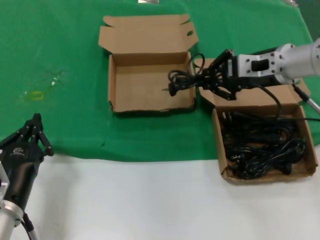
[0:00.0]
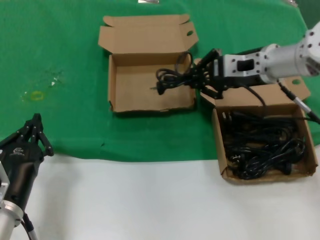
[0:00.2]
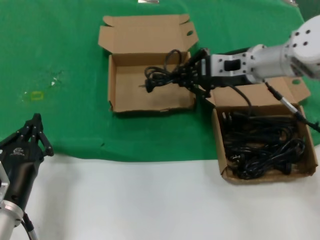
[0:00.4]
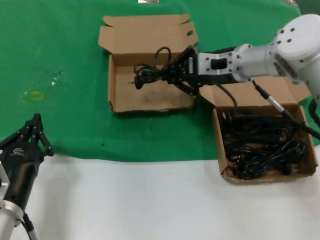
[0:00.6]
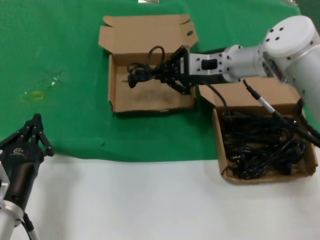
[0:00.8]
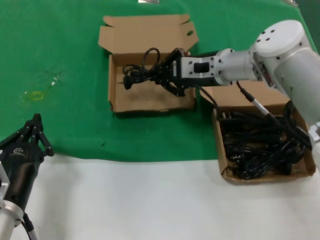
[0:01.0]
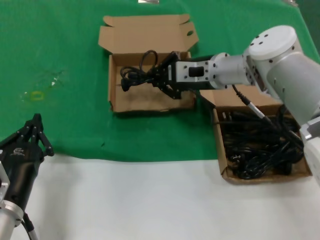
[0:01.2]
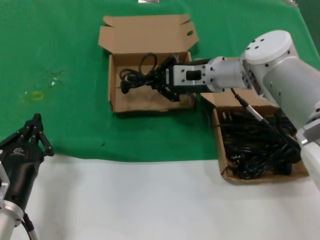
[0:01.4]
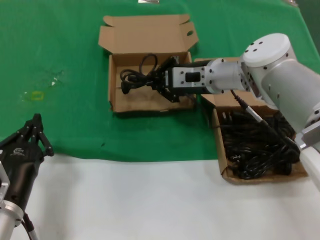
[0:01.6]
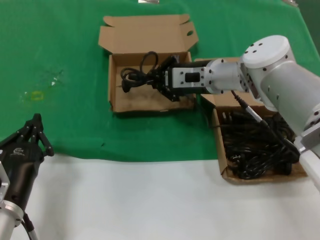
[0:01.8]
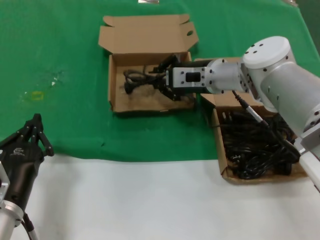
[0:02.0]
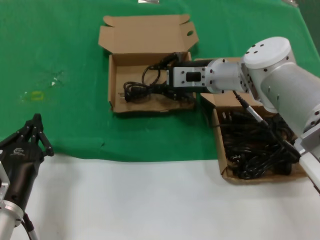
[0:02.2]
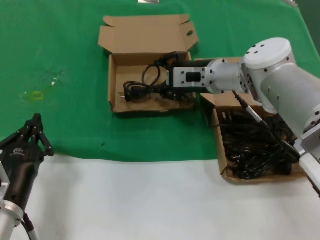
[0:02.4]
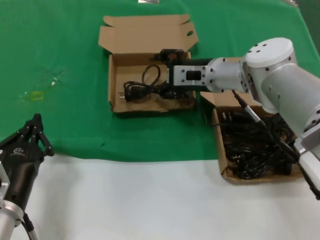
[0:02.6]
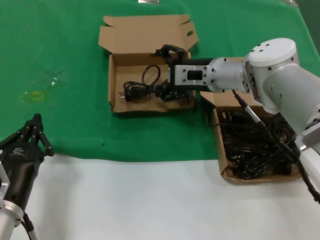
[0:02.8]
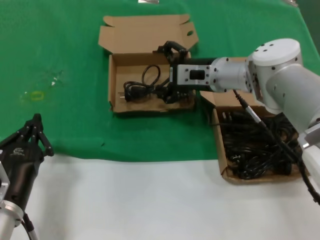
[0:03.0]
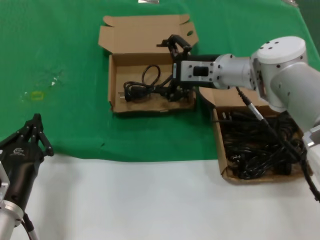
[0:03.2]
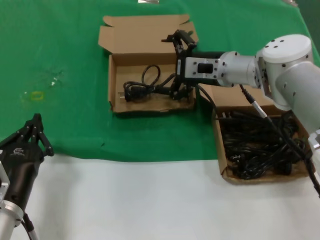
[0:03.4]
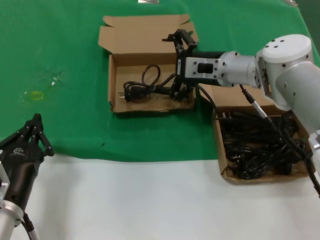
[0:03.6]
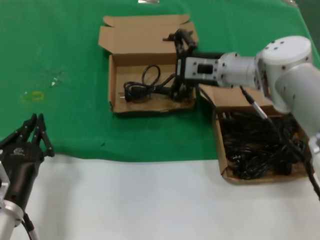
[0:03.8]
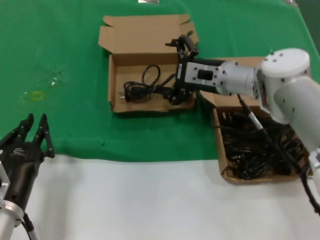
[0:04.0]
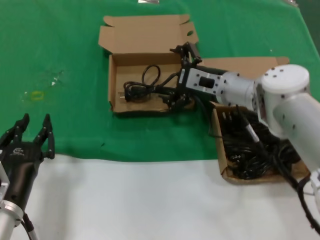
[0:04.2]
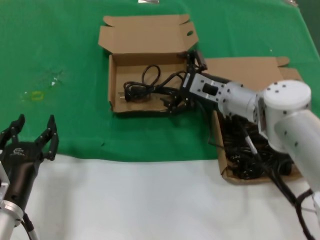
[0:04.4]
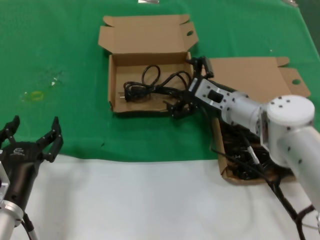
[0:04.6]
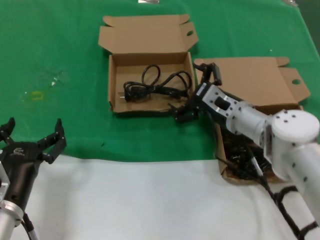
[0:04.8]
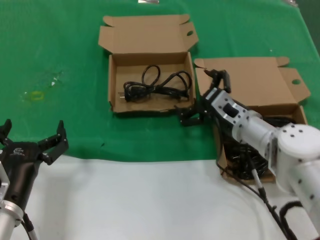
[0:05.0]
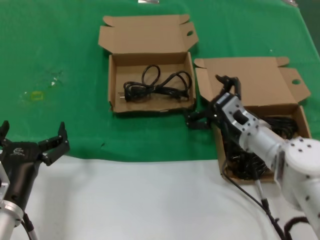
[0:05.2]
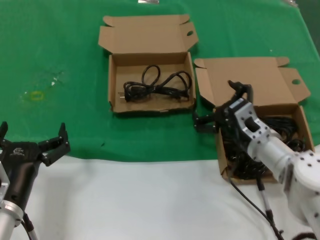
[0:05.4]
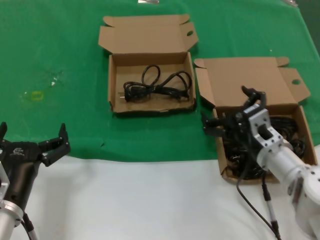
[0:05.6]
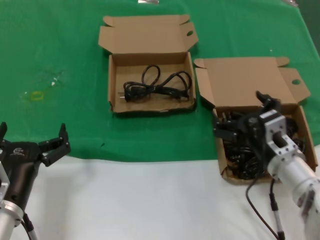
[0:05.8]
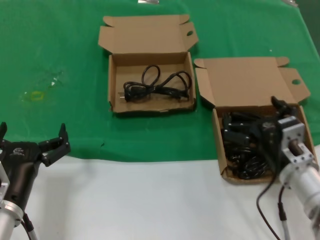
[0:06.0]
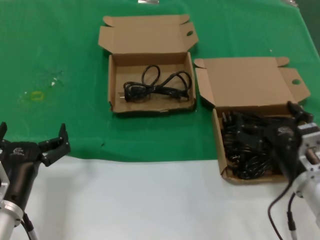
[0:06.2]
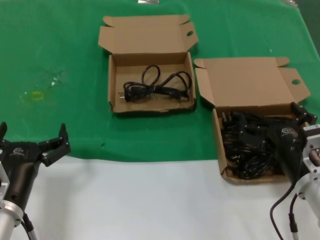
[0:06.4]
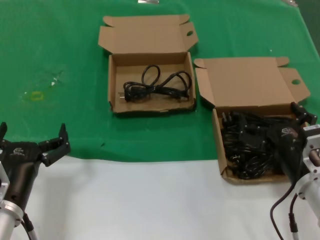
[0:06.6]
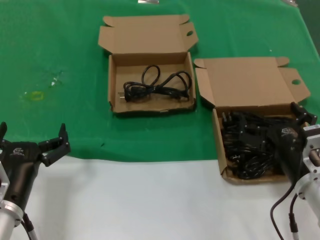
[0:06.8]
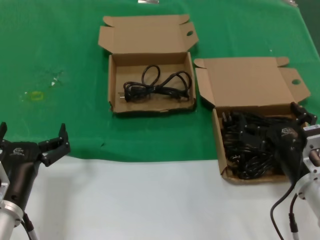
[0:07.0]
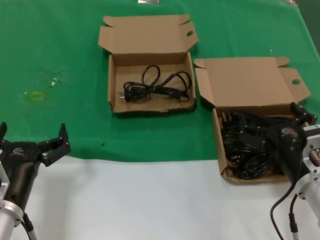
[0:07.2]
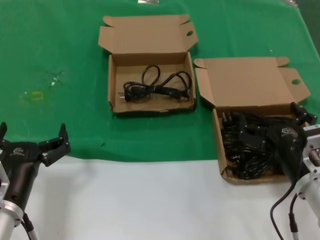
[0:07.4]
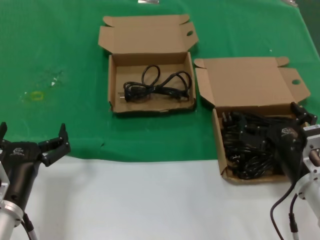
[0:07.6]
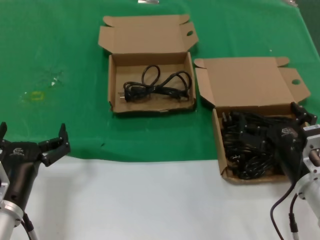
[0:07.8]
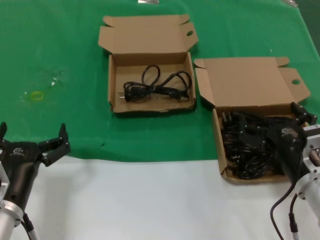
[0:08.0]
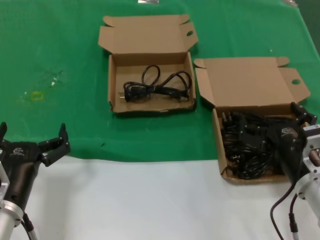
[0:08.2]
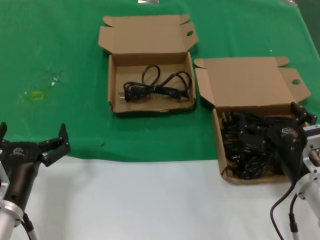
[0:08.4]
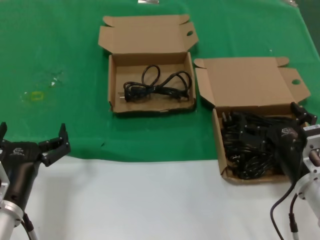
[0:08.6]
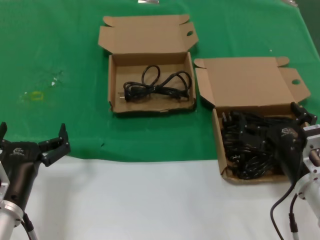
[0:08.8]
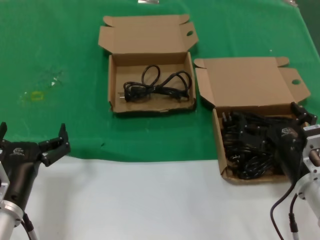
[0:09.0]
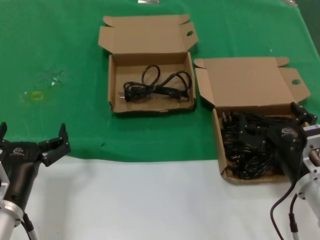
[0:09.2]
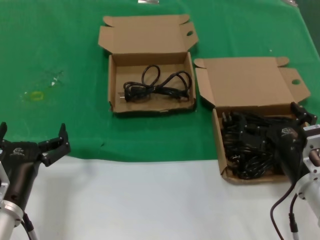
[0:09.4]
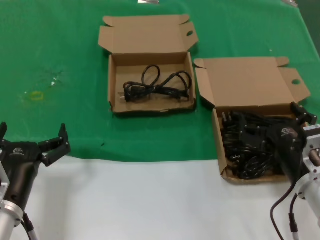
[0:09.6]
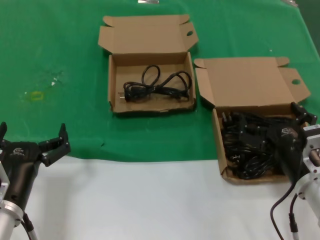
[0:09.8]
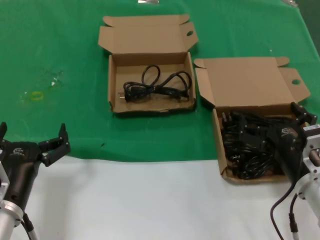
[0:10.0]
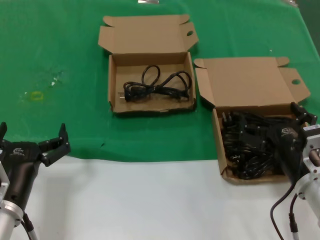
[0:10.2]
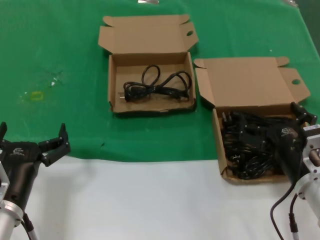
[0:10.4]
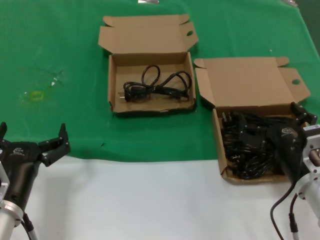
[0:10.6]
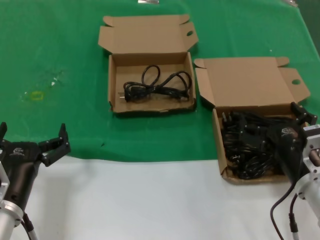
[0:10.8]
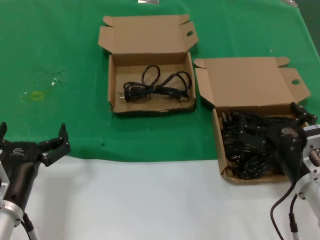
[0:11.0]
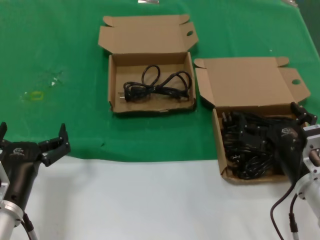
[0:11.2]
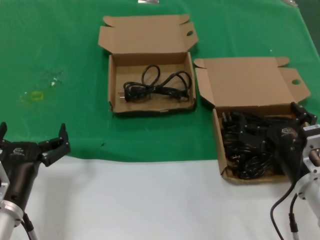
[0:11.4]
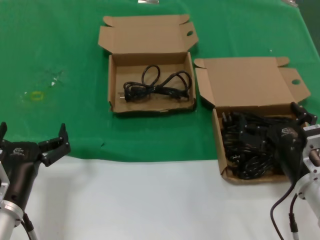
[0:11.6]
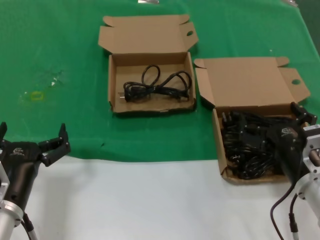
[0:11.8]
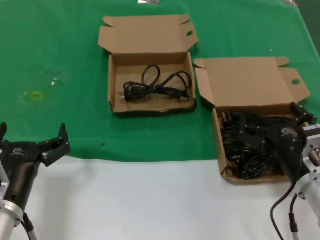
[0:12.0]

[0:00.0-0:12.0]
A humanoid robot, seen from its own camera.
Task of the whole recording: take the parts from the box containing them and put them into an empty box.
Step, 0:00.0 to 0:02.2: Place the data cable in the another box.
0:00.0 to 0:01.6: The right hand moves to the left, downward and forward, some 15 cm.
0:01.6 to 0:03.0: Neither hand changes place.
0:03.0 to 0:04.4: The right hand shifts some 5 cm downward.
0:04.4 to 0:06.0: The right hand travels backward, downward and to the right by roughly 20 cm.
0:06.0 to 0:07.6: The hands make only small movements.
0:07.6 to 0:12.0: The two hands keep their place.
